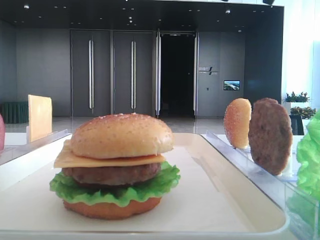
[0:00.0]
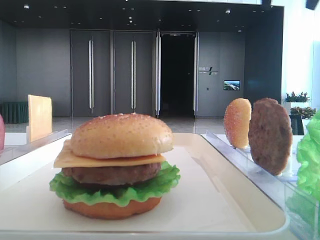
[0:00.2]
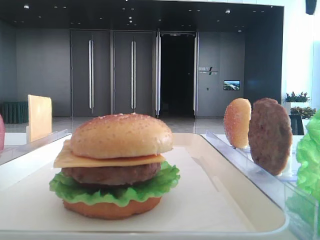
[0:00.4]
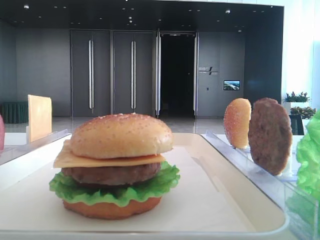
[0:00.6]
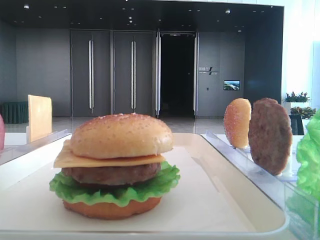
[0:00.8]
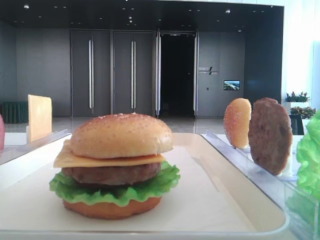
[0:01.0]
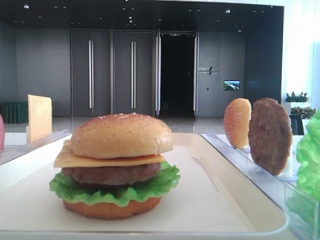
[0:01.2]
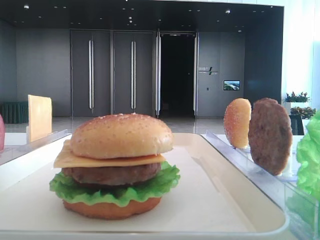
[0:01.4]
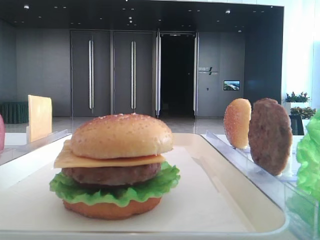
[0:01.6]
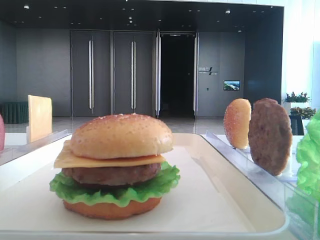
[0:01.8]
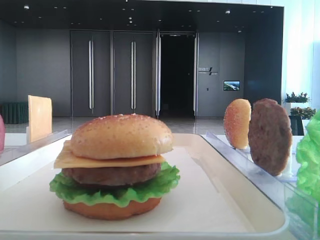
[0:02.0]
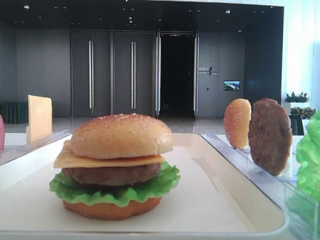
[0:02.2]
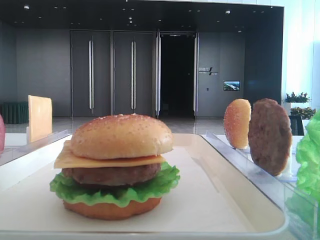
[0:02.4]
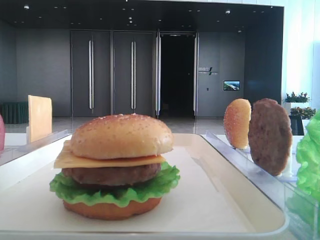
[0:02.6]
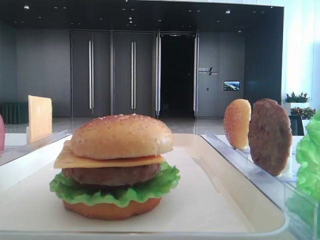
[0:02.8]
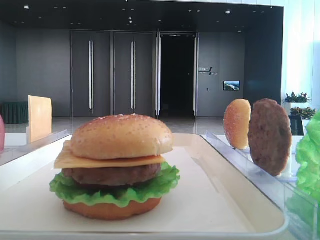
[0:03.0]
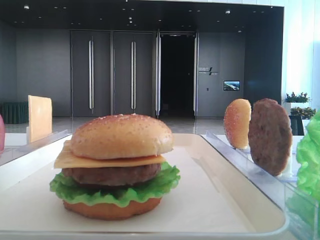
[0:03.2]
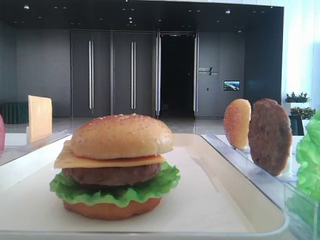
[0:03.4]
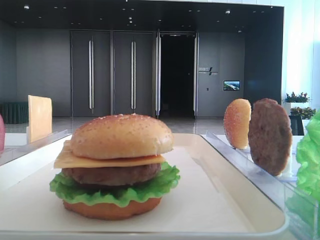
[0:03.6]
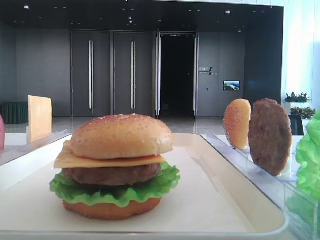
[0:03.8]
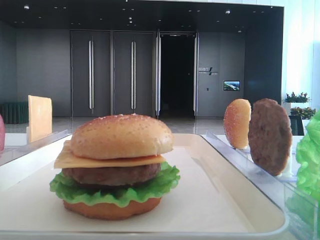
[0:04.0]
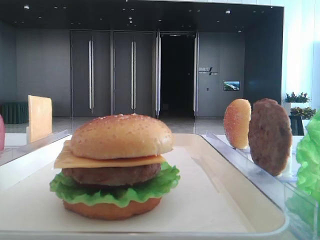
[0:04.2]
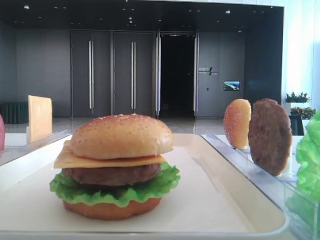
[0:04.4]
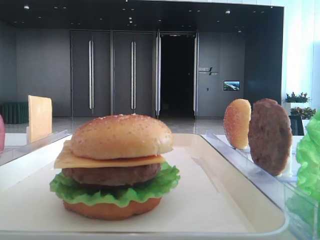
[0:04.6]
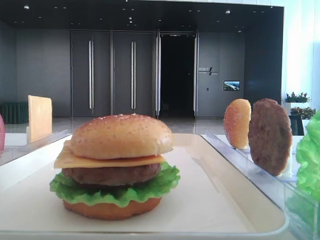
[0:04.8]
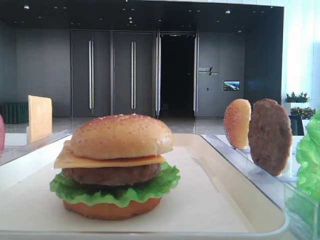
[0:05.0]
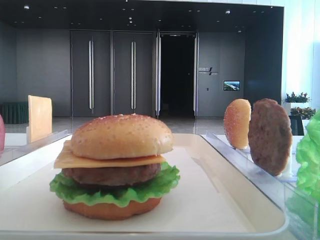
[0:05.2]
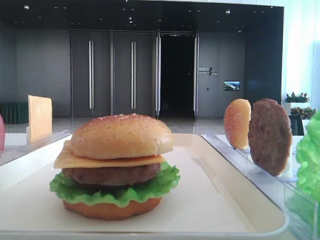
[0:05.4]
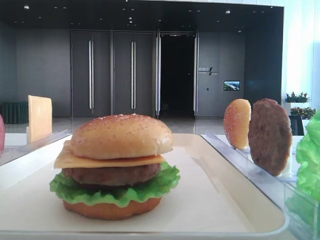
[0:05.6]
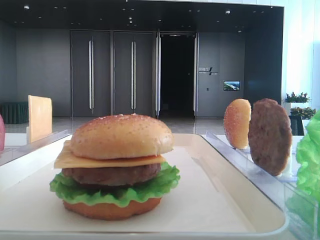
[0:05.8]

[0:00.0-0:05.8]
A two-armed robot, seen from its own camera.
0:01.4 to 0:02.8: The right gripper shifts about 30 cm backward.
0:04.4 to 0:05.8: Neither gripper changes place.

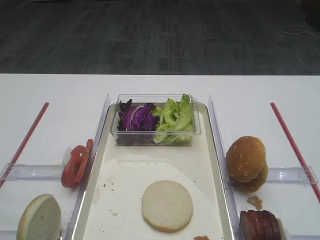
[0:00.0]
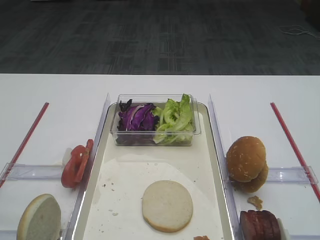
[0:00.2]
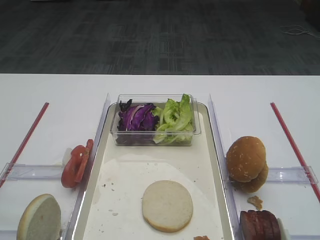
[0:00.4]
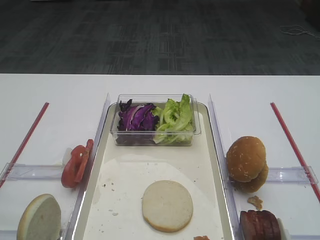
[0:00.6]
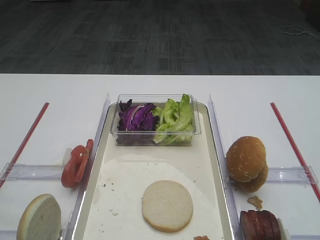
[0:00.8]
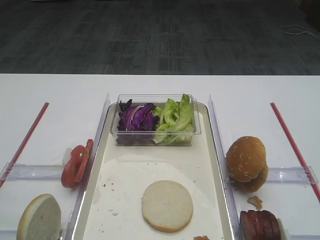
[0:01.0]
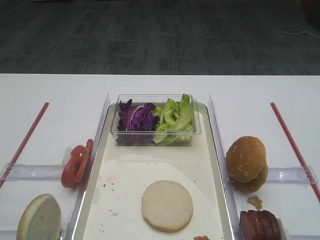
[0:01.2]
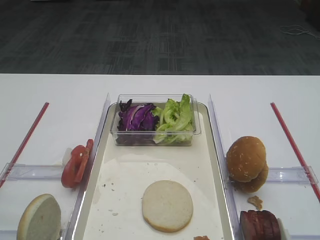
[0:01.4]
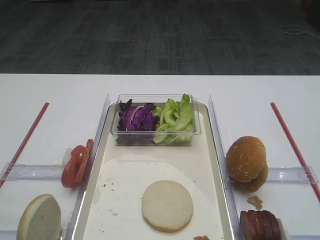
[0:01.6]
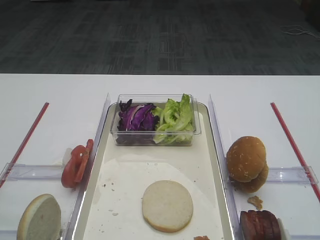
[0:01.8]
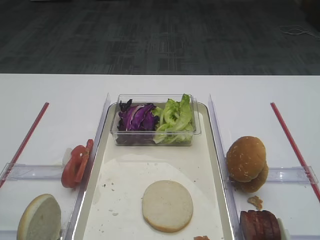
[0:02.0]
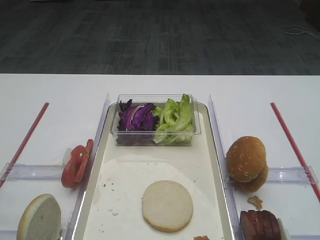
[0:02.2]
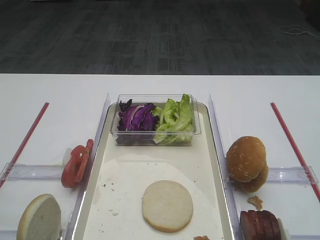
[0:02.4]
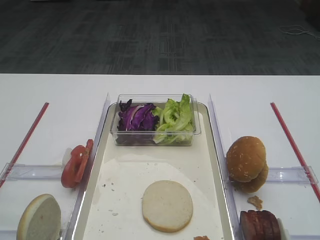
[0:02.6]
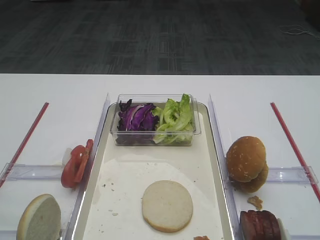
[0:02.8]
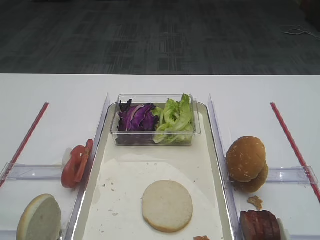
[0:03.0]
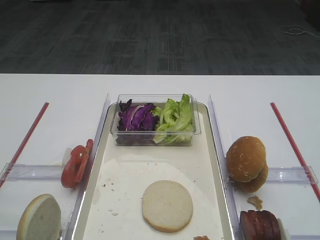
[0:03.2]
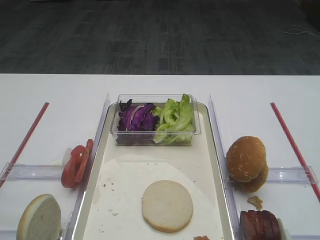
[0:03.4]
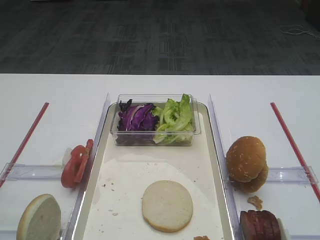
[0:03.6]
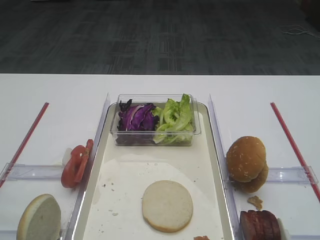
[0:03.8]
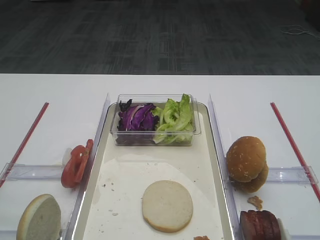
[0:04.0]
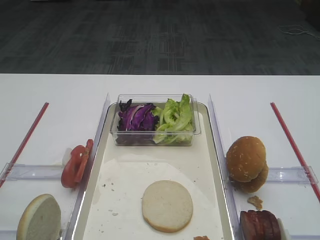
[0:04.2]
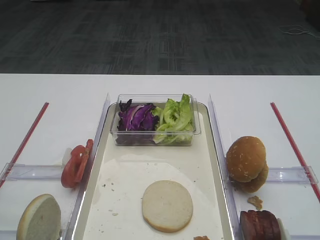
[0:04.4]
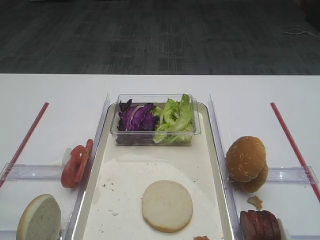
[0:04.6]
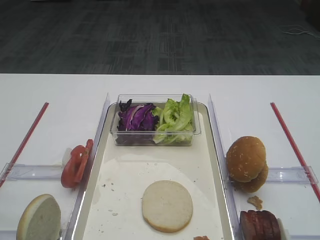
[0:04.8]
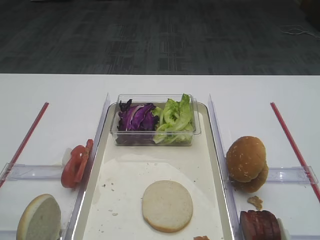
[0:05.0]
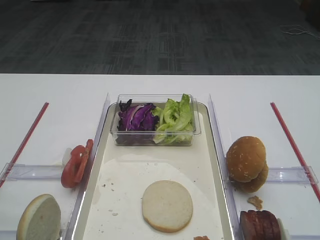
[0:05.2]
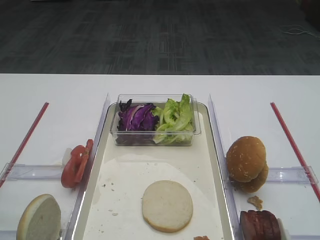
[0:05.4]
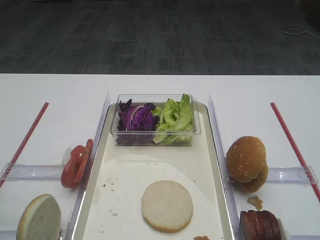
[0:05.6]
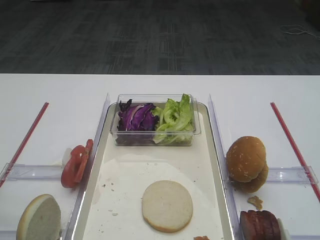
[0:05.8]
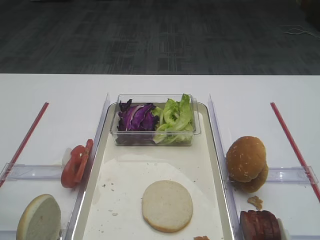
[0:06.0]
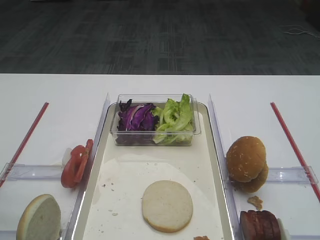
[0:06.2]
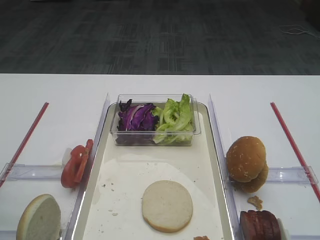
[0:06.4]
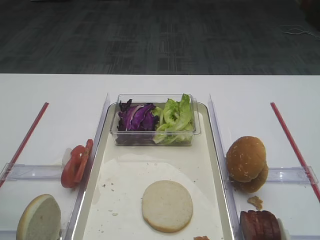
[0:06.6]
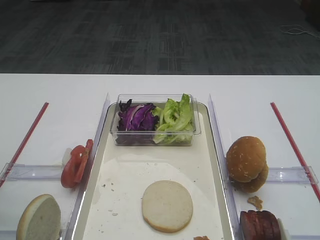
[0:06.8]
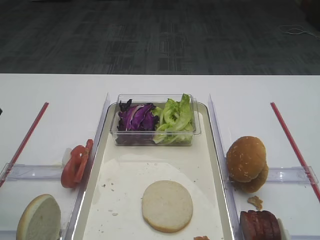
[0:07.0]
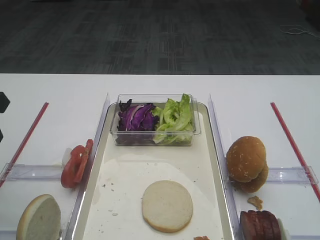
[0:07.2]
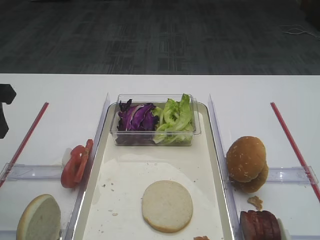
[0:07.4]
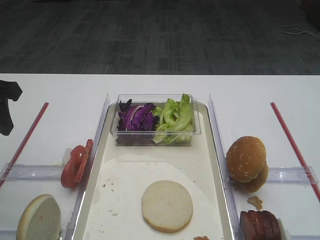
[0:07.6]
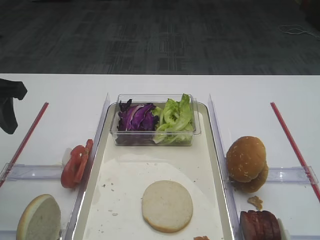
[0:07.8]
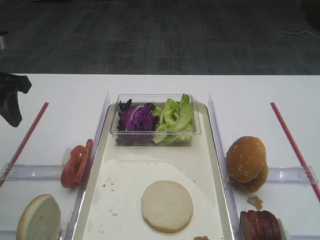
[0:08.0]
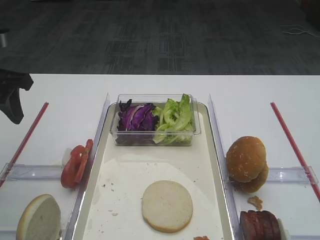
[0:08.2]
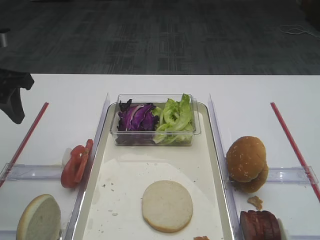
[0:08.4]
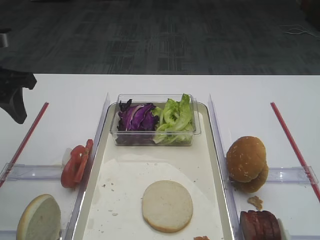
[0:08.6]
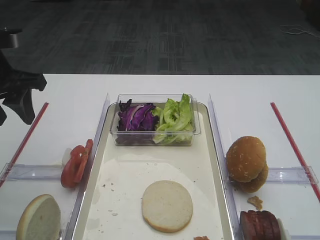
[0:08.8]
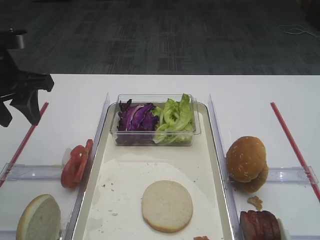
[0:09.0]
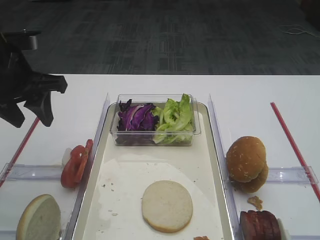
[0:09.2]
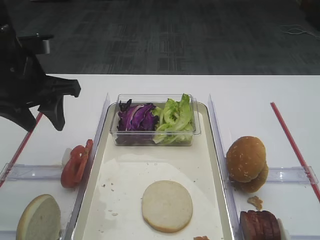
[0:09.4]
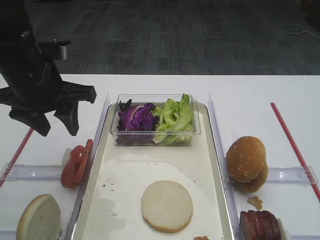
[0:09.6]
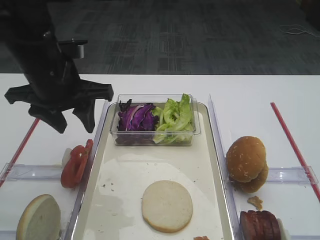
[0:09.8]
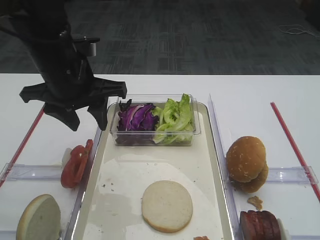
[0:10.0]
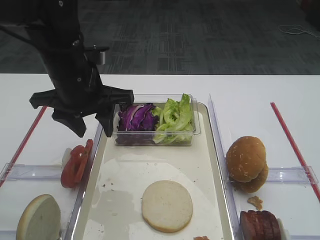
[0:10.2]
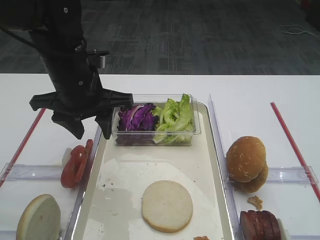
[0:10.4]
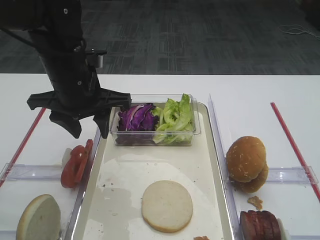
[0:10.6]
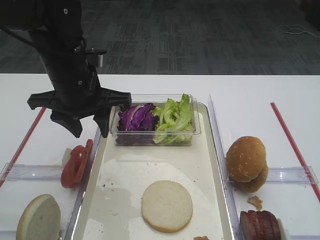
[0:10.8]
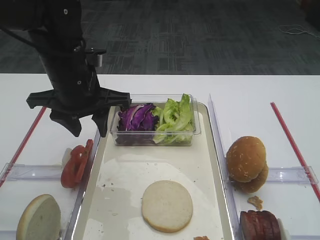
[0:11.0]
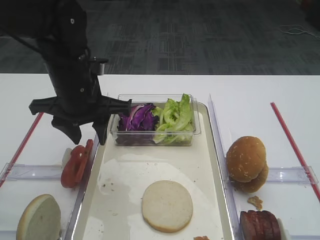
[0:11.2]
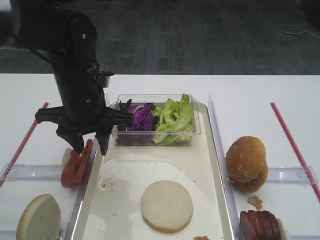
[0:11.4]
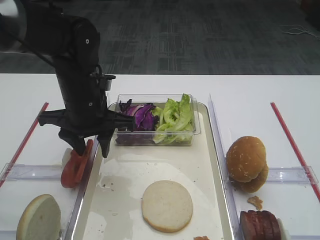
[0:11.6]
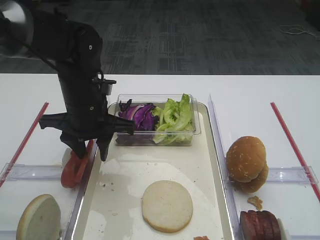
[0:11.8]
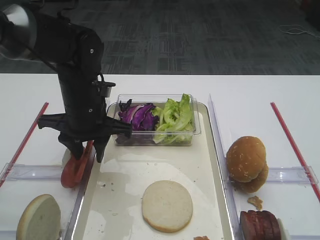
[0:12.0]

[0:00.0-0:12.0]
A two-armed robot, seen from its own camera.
0:01.6 to 0:03.0: The two grippers keep their place.
0:06.0 to 0:07.6: The left gripper heads forward, covering some 15 cm.
0:07.6 to 0:09.0: The grippers stay close to where they were, moving slightly.
0:09.0 to 0:10.4: The left gripper heads to the right, covering approximately 10 cm.
0:10.4 to 0:12.0: The left gripper shifts approximately 5 cm downward.

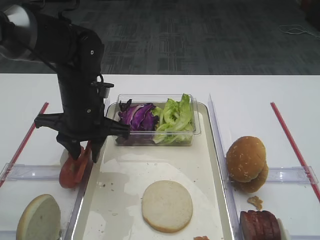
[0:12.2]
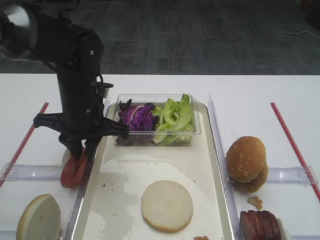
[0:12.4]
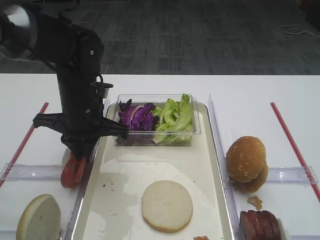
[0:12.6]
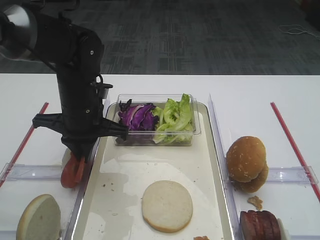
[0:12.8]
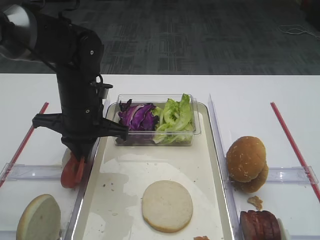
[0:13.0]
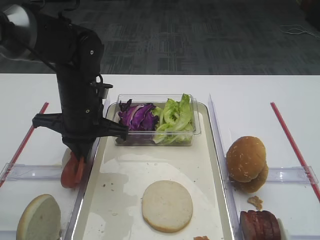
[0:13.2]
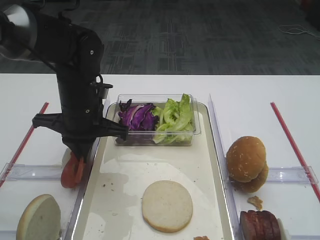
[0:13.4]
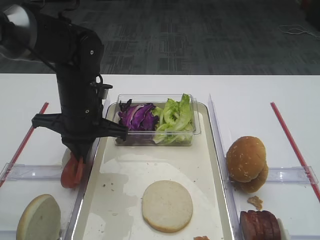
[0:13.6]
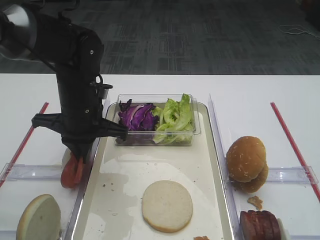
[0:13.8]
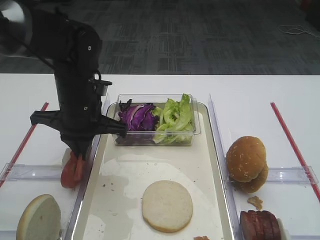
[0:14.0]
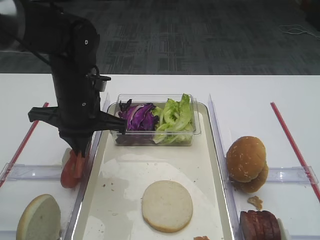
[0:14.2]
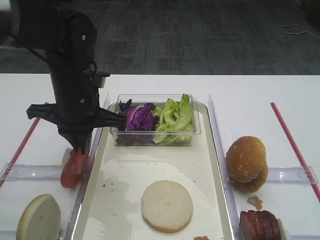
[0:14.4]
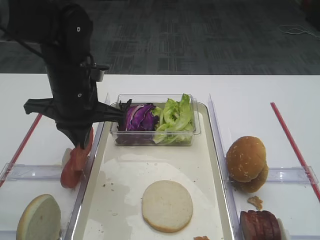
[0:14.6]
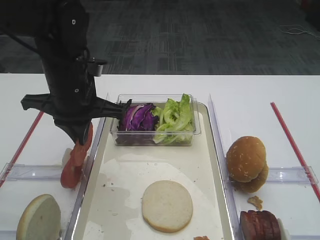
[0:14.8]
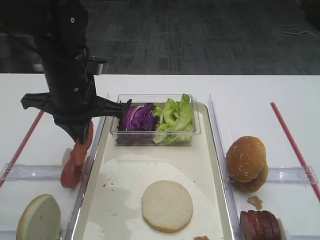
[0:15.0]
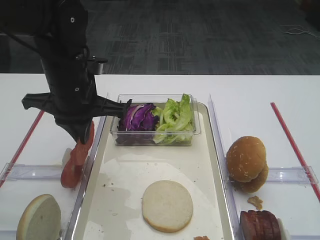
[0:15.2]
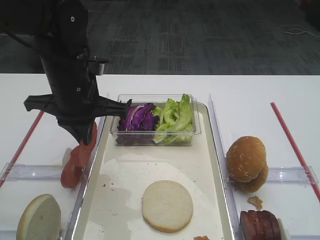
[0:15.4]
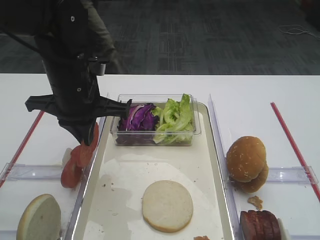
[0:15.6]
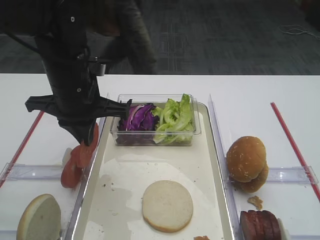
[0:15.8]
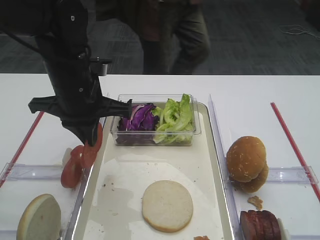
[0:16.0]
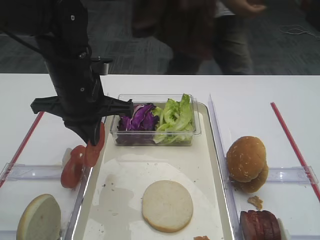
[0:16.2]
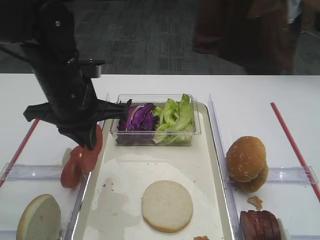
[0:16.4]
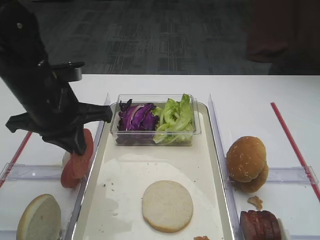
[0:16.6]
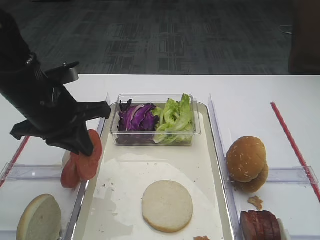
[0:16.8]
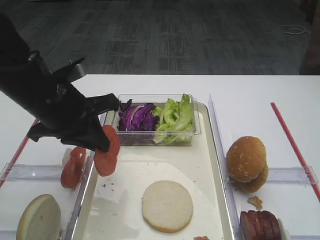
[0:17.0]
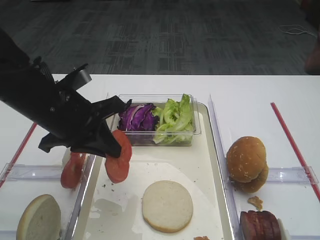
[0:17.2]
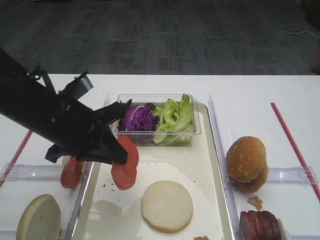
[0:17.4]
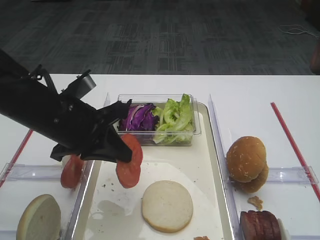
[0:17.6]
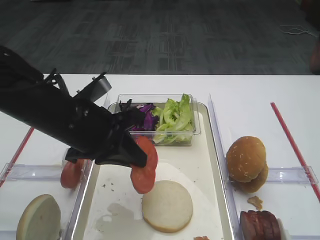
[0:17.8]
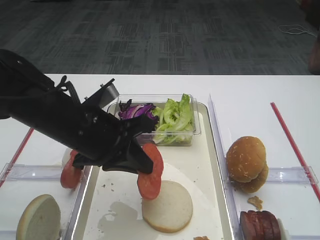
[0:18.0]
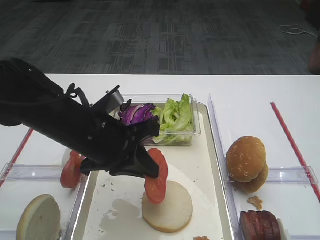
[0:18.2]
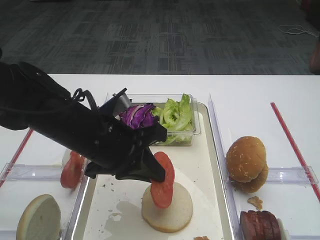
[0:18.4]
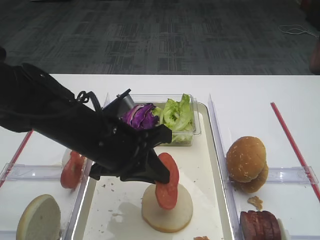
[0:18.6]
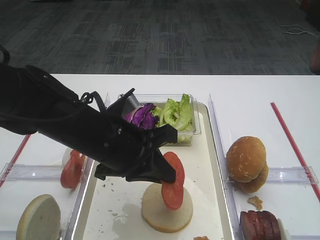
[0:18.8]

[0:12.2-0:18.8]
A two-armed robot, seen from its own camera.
Step, 0:12.2 to 0:14.8: Pick up the tomato slice with the left gripper.
0:12.2 to 0:13.8: The left gripper closes.
0:13.8 to 0:15.4: The left gripper changes place by approximately 5 cm.
0:15.4 to 0:17.2: The left gripper moves about 5 cm.
0:17.2 to 0:18.8: The left gripper moves to the right, about 10 cm.
